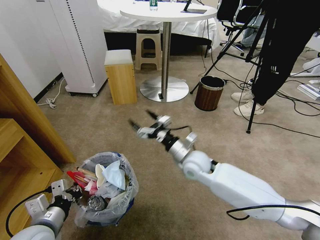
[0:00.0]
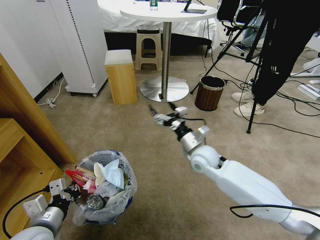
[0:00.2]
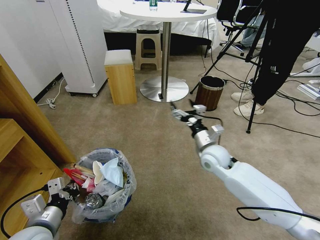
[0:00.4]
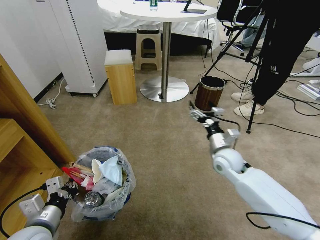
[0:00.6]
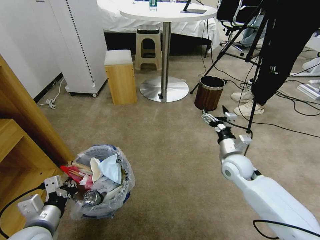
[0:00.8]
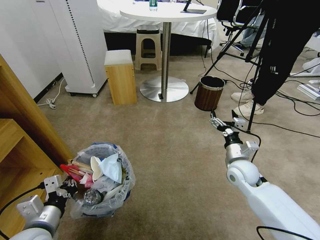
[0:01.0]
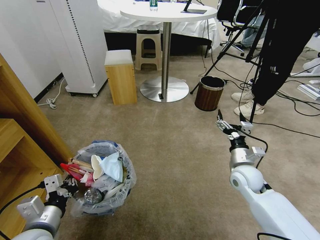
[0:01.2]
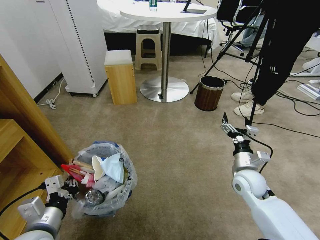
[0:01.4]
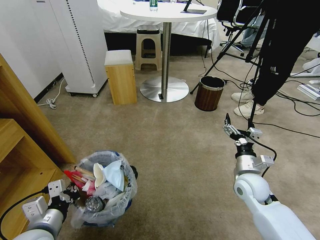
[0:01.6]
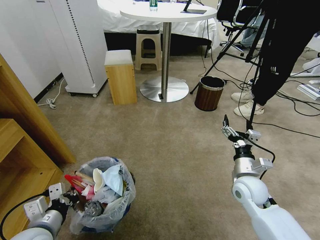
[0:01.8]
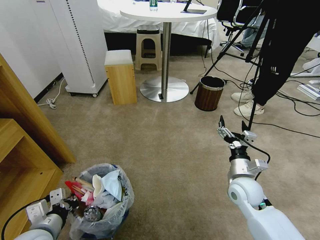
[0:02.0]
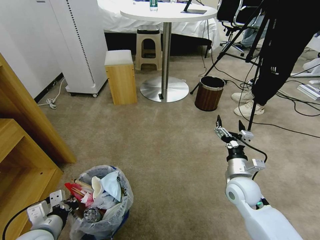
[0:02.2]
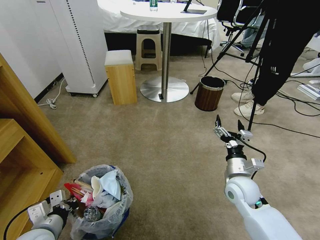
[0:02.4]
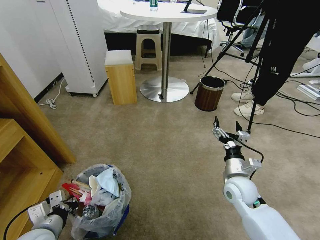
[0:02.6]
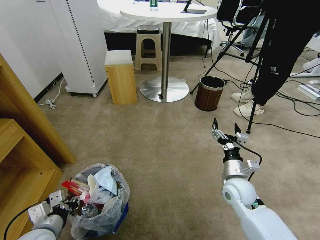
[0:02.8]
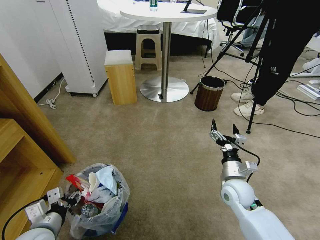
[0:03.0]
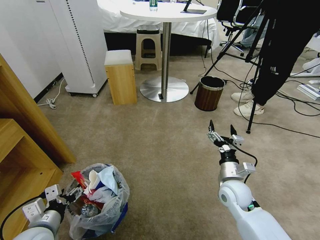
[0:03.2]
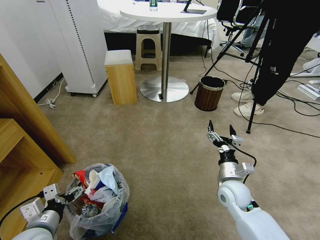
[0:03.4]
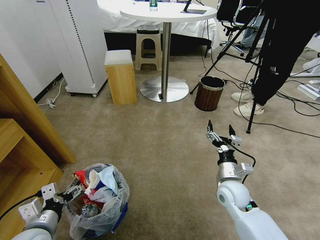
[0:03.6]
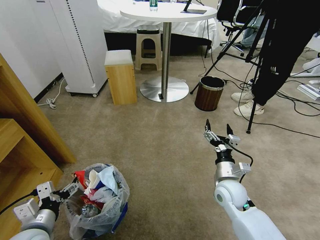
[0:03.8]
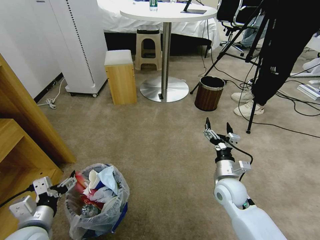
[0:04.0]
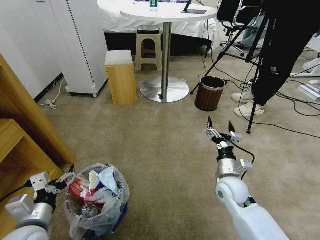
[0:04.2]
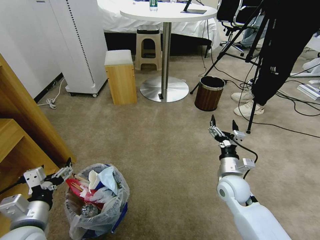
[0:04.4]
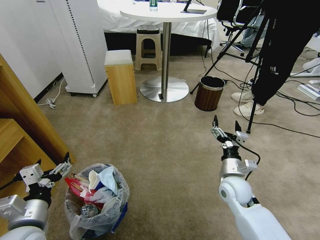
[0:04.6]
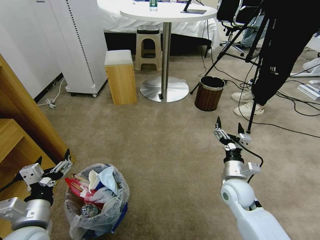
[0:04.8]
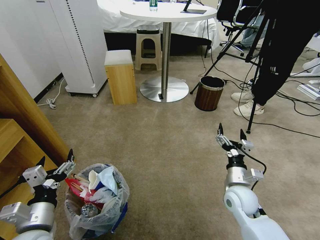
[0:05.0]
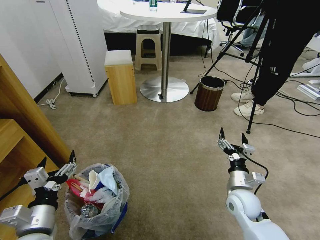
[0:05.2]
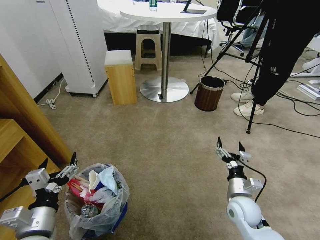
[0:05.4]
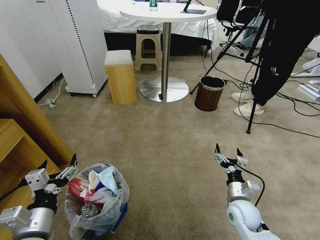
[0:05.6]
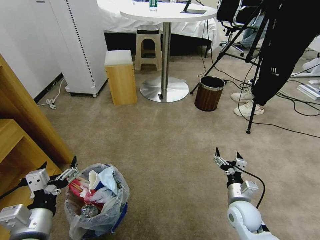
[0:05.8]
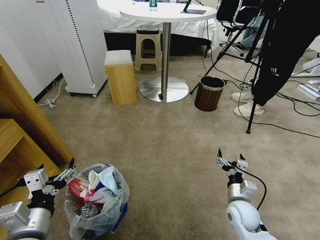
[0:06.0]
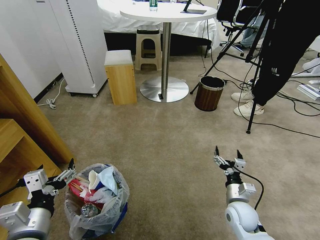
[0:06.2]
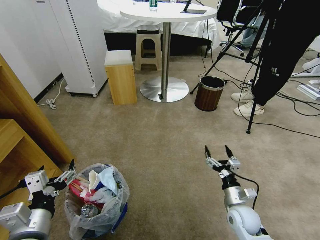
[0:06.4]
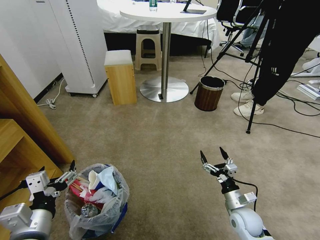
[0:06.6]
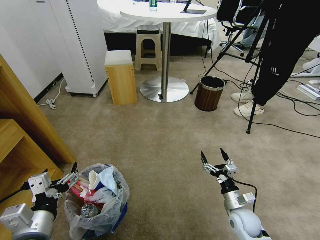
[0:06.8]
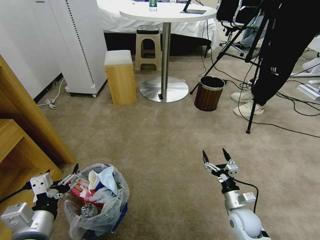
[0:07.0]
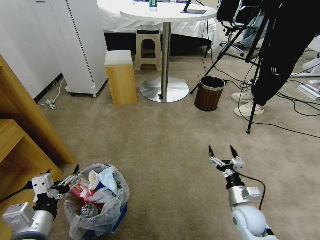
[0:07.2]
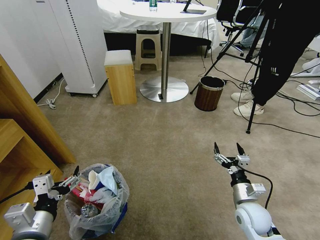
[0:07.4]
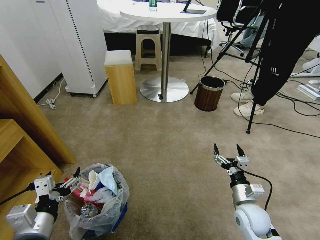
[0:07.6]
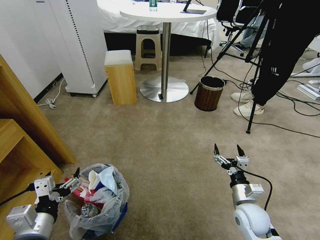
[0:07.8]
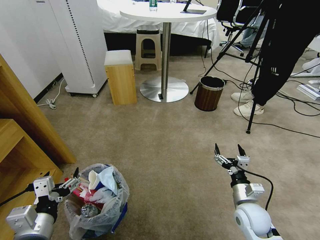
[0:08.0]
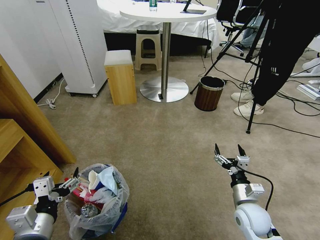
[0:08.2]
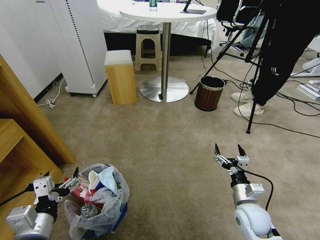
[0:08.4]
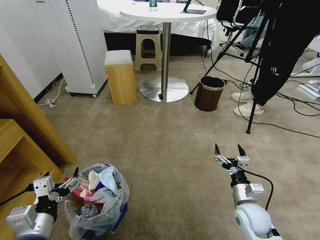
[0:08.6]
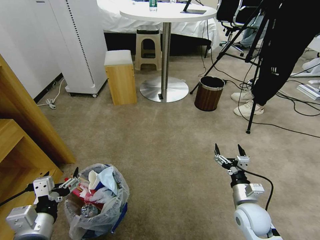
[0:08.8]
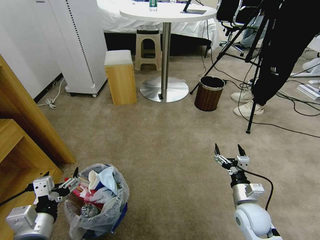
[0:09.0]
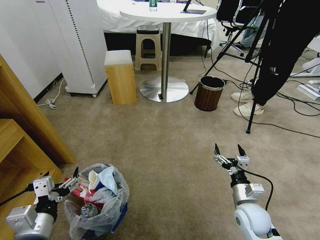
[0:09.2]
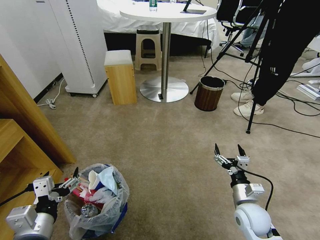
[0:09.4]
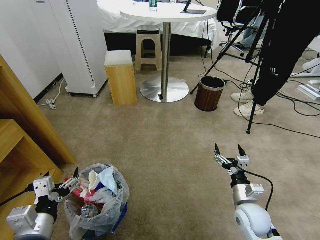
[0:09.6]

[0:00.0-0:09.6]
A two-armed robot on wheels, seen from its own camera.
Task of the whole recording: Pick up the trash bin and place the garbage on the floor into it.
0:00.0 to 0:01.6: The right gripper goes about 20 cm to the right and backward.
0:01.6 to 0:03.2: The right gripper changes place by approximately 5 cm. The left gripper shifts by roughly 5 cm, and opens its fingers.
0:03.2 to 0:04.8: The left gripper moves upward, approximately 5 cm.
0:04.8 to 0:06.4: The right gripper heads downward and backward, covering about 10 cm.
0:06.4 to 0:08.0: The grippers move only a little.
0:08.0 to 0:09.6: Neither gripper changes place.
